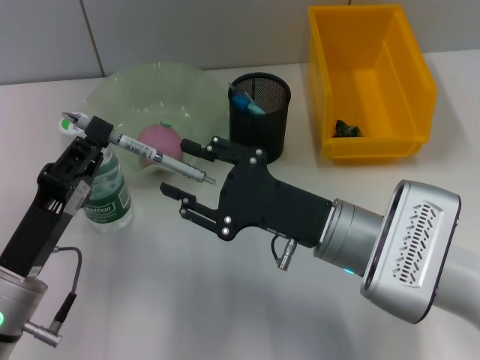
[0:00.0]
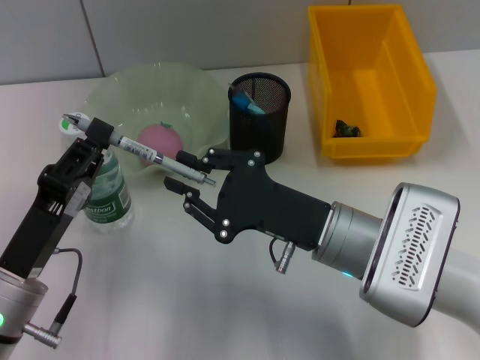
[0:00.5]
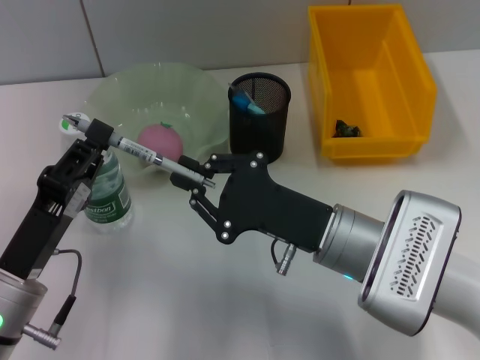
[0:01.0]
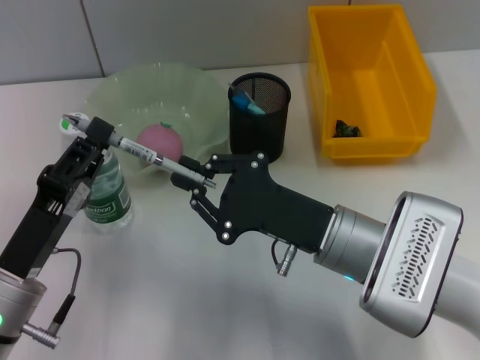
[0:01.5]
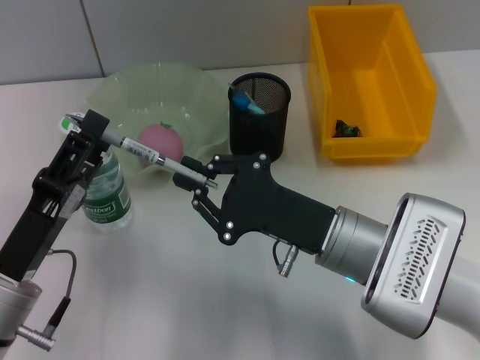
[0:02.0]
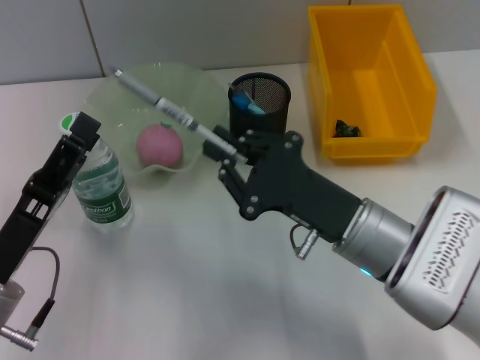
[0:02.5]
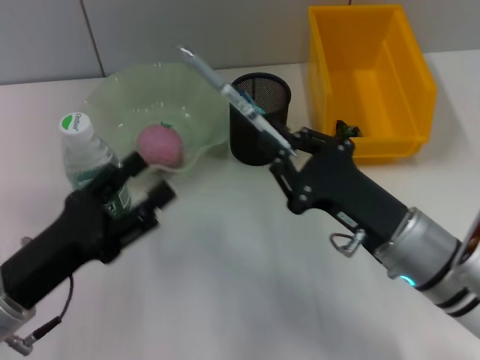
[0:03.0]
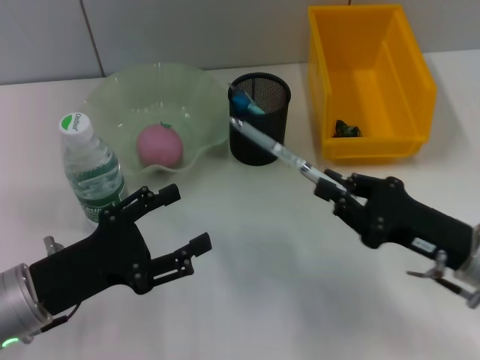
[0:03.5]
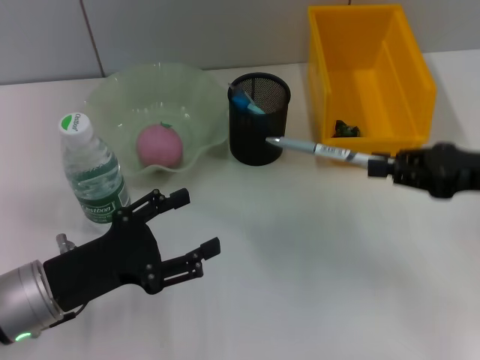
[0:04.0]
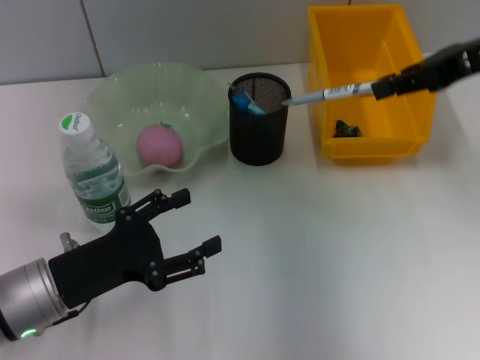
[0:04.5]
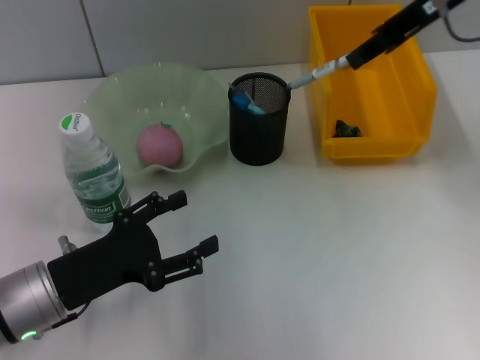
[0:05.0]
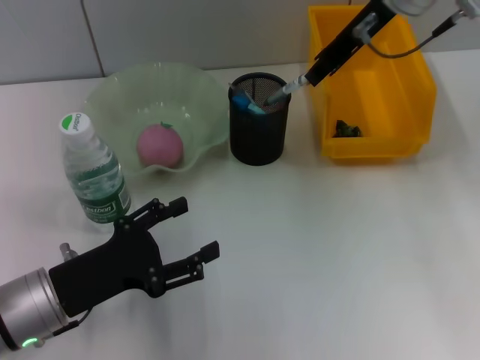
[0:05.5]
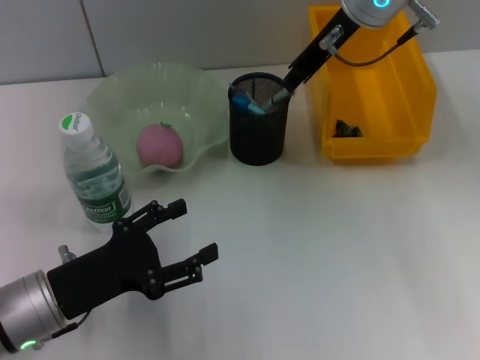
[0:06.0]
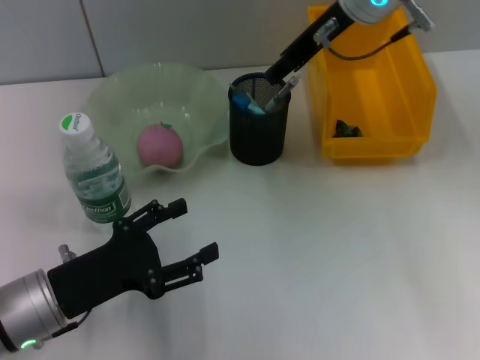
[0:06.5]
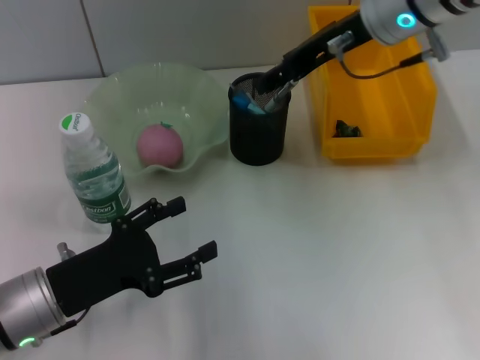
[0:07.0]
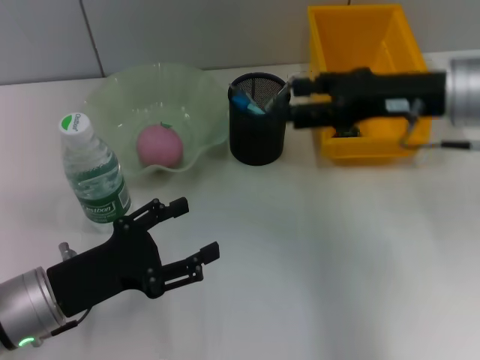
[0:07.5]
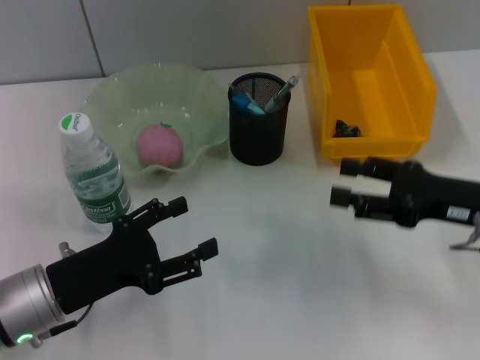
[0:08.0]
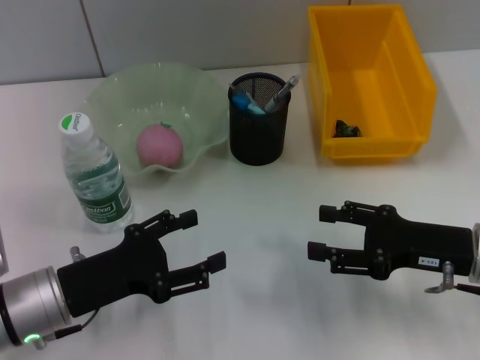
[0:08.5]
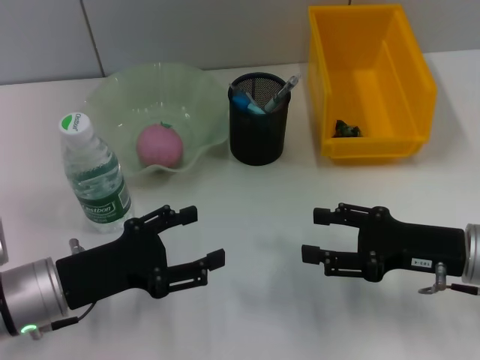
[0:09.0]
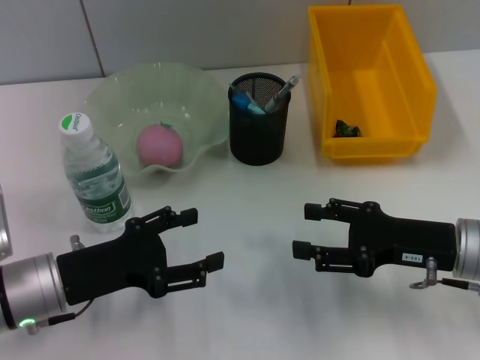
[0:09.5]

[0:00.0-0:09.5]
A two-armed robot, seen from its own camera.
Step, 0:02.0 to 0:06.0: Place the gray spring-action pen into the pen holder with the right hand.
0:00.0 to 0:02.0: The left gripper opens up. Meanwhile the right gripper closes.
0:02.0 to 0:04.0: The left gripper opens up, while the right gripper shifts about 20 cm to the right.
0:04.0 to 0:05.5: The right gripper travels to the left, forward and upward by approximately 25 cm.
0:05.5 to 0:07.5: The right gripper is displaced backward, downward and to the right by approximately 15 cm, and opens.
0:07.5 to 0:09.5: The right gripper heads downward and backward, covering about 15 cm.

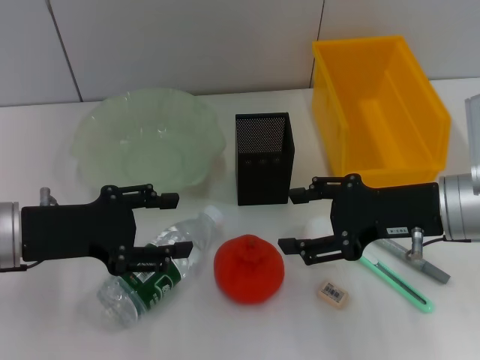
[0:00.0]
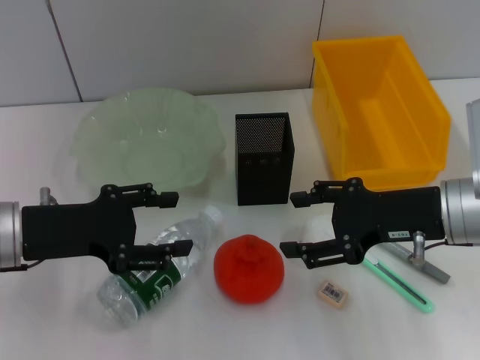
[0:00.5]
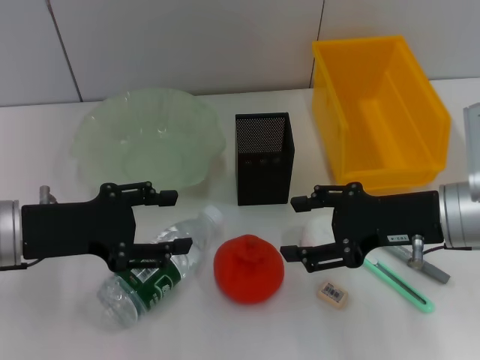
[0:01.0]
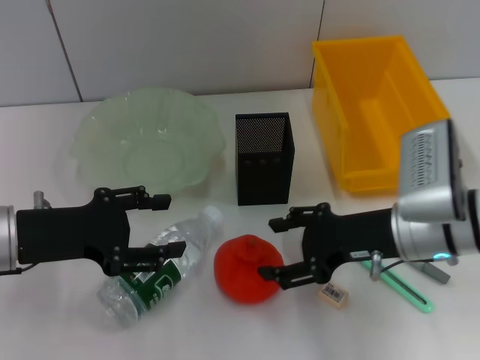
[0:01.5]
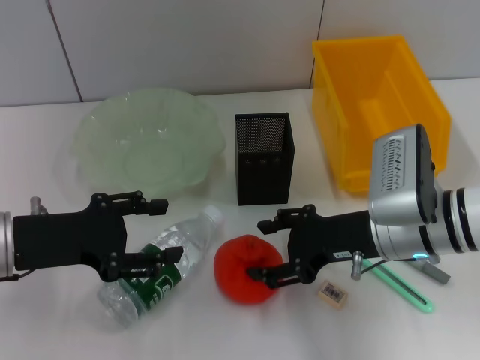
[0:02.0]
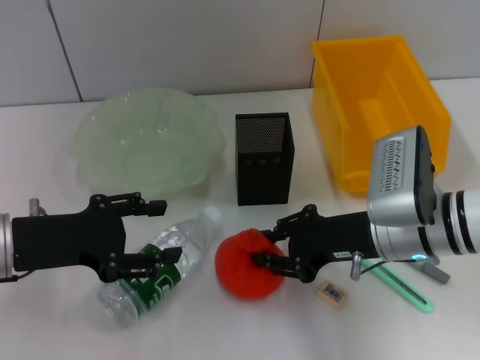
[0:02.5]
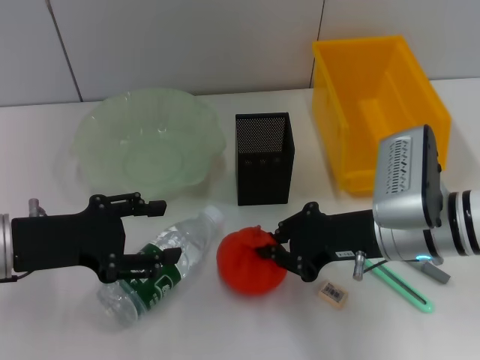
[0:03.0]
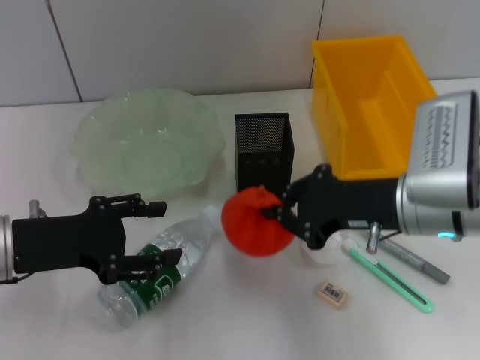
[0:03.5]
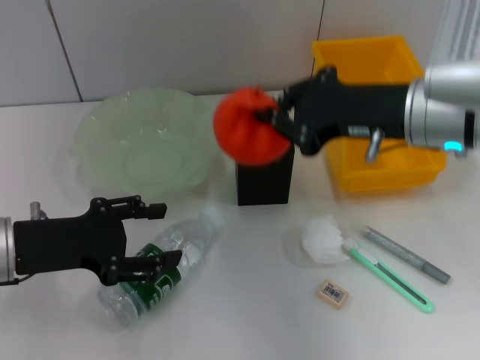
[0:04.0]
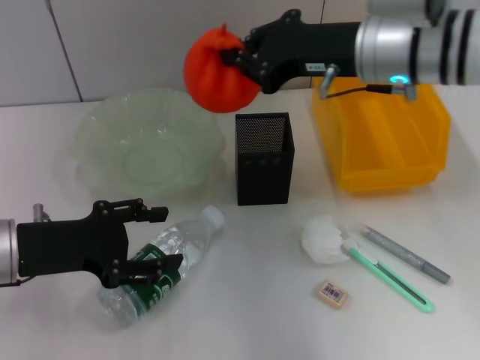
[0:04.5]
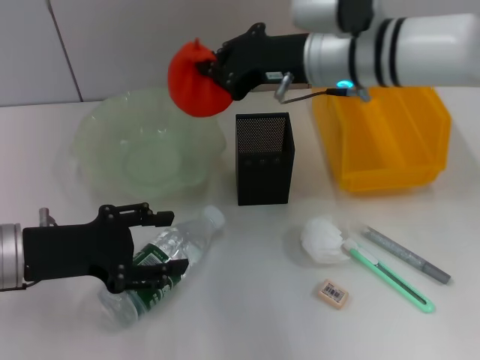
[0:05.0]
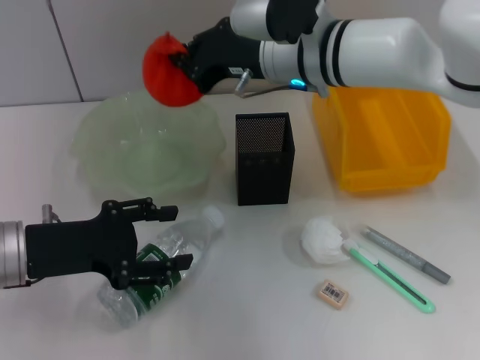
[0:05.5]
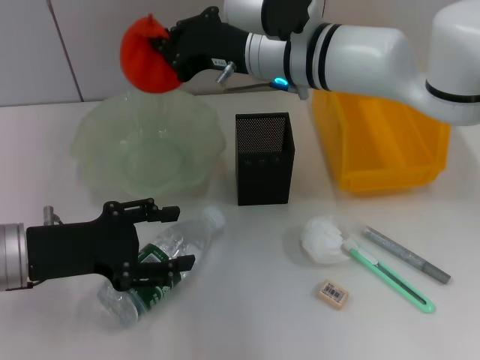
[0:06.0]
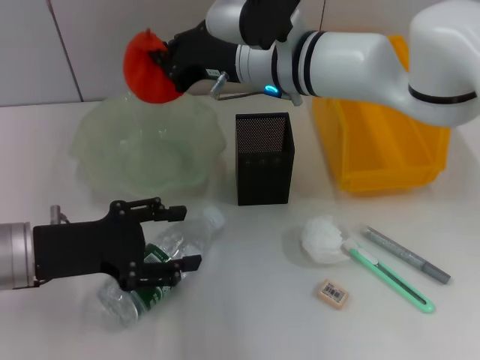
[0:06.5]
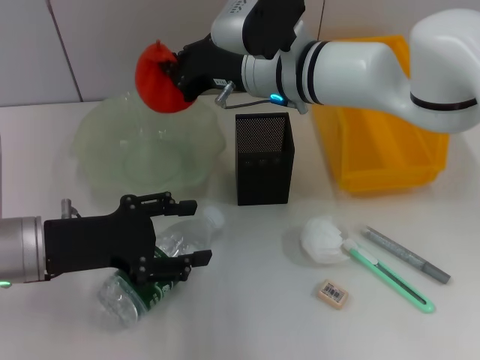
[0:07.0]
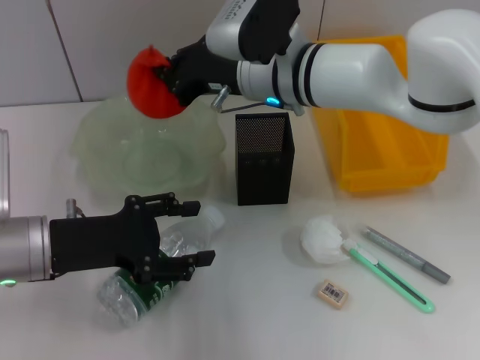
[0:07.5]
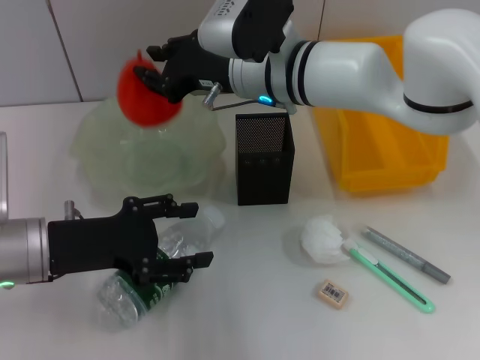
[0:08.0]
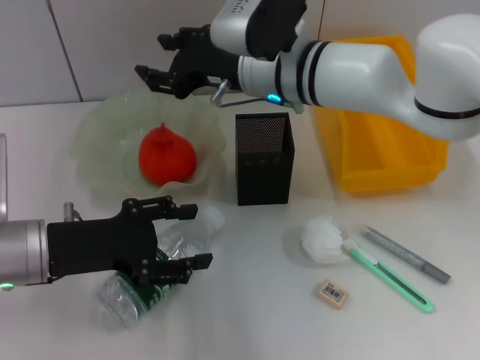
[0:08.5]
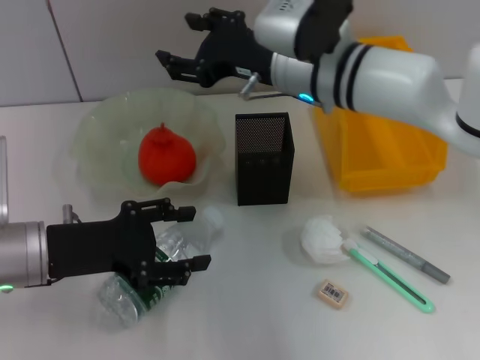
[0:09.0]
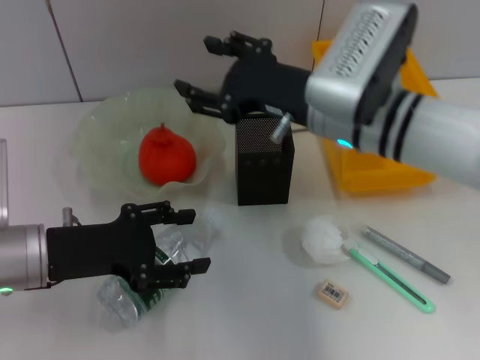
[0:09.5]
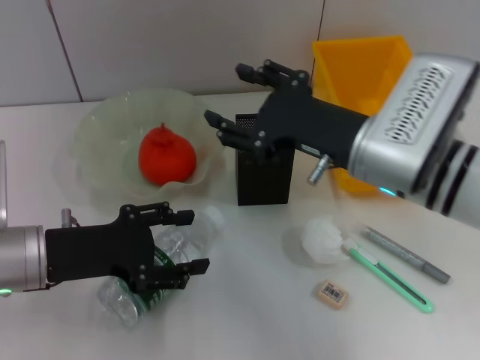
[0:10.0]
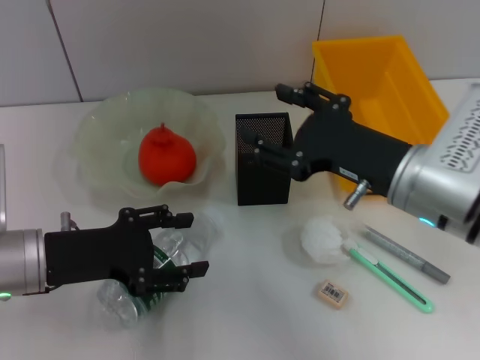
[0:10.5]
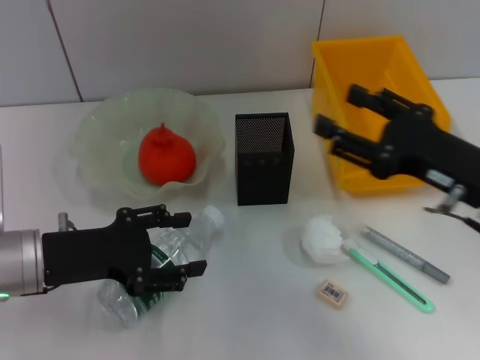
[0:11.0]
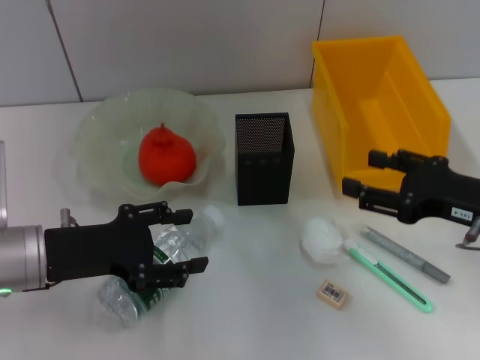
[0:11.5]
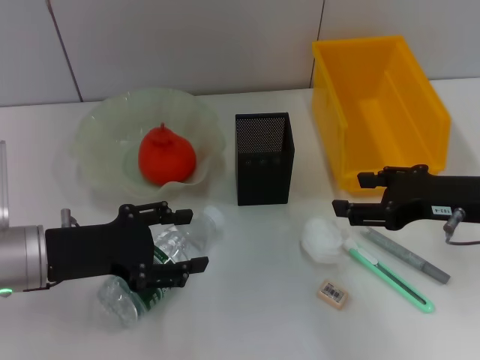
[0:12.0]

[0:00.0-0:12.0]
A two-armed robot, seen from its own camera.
Step, 0:00.0 to 0:02.5: Grab the orange with the right hand.
Step, 0:03.0 to 0:08.0: Place the orange into the fruit bowl with the right hand.
0:00.0 to 0:02.0: The right gripper shifts by about 5 cm.
0:02.0 to 0:04.0: The right gripper shifts about 10 cm upward, and closes up.
0:04.0 to 0:06.0: The right gripper heads to the left and forward, covering about 15 cm.
0:06.0 to 0:08.0: The grippers make only small movements.
0:08.0 to 0:10.0: The right gripper moves backward and to the right, approximately 15 cm, and opens.
0:10.0 to 0:12.0: The right gripper goes some 10 cm to the right.

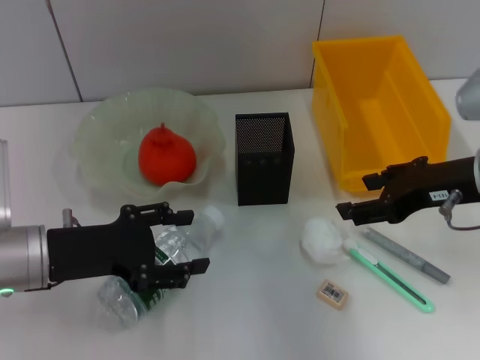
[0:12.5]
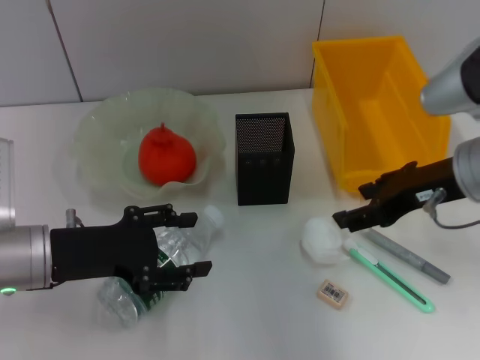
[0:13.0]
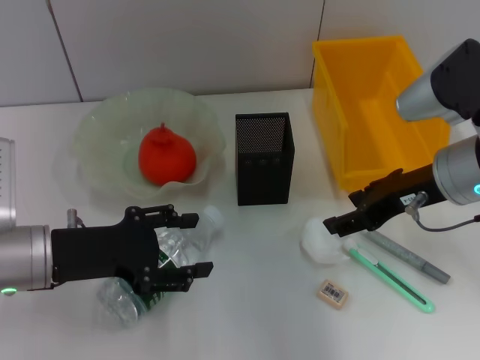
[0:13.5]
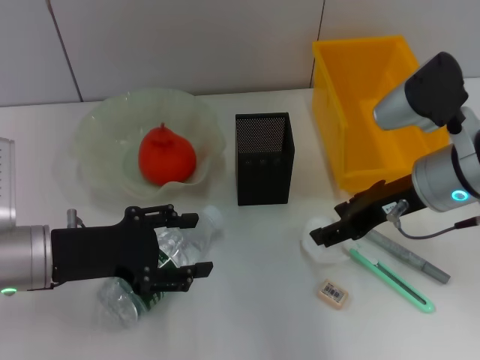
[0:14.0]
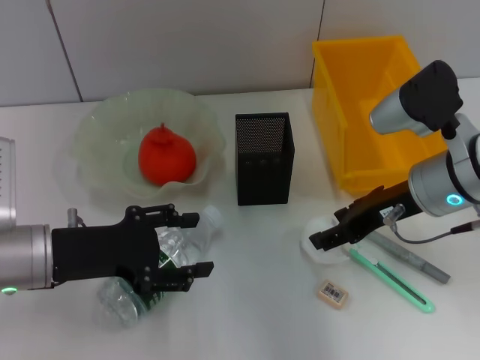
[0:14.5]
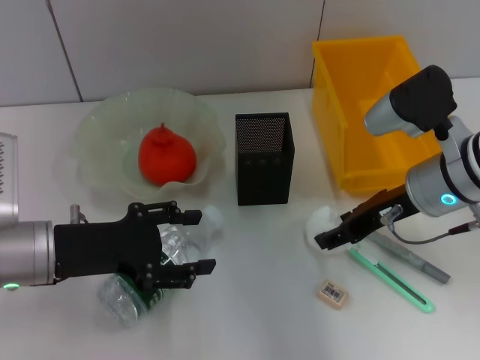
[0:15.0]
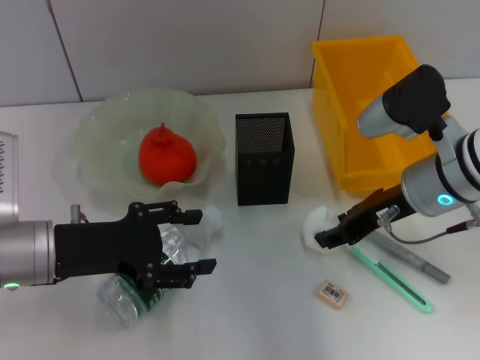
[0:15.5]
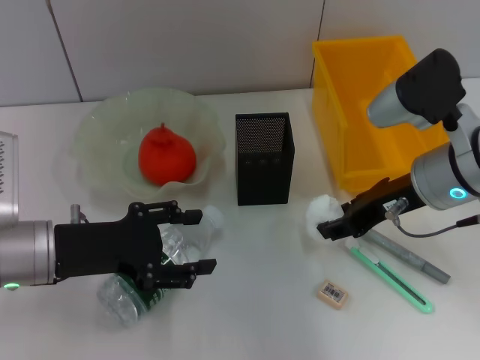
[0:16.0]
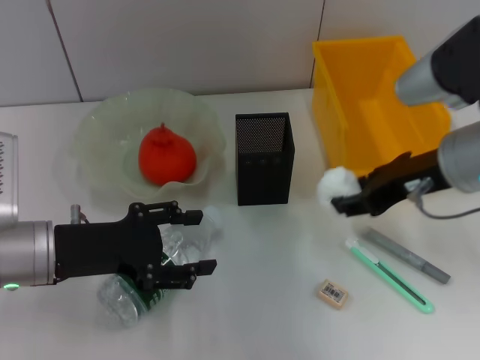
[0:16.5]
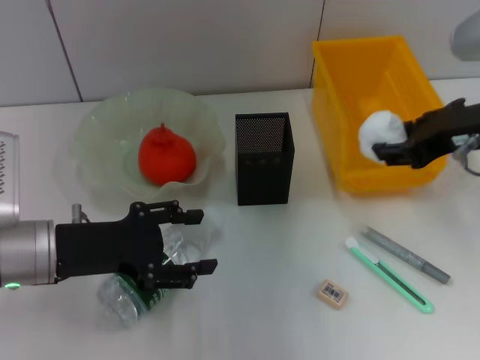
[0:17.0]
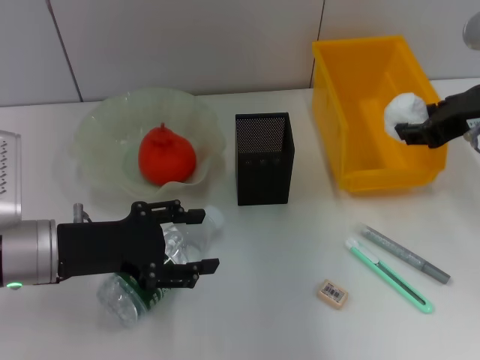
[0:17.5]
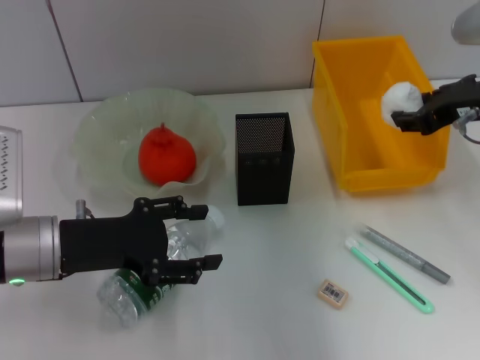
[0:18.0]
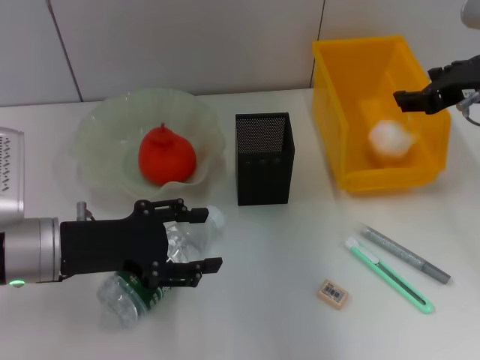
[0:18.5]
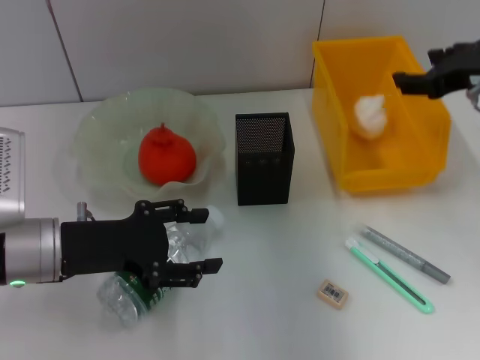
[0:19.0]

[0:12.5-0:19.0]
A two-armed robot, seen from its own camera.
Step, 0:12.5 to 0:15.0: Grab the paper ball with the right hand.
Step, 0:15.5 to 0:18.5: Place the paper ball into the trash can with the right hand.
0:12.5 to 0:14.5: The right gripper shifts by roughly 5 cm.
0:14.5 to 0:17.0: The right gripper heads upward, covering approximately 10 cm.
0:17.0 to 0:19.0: The right gripper shifts by some 5 cm.
